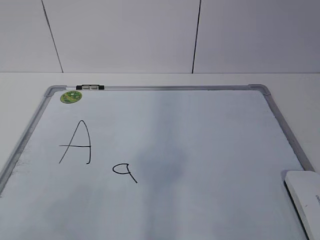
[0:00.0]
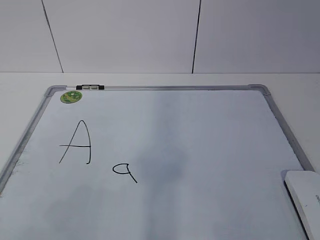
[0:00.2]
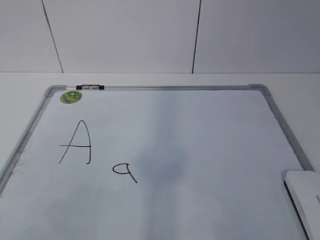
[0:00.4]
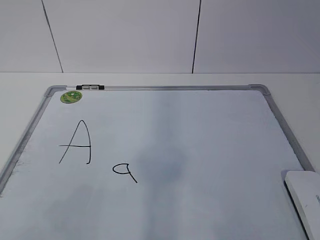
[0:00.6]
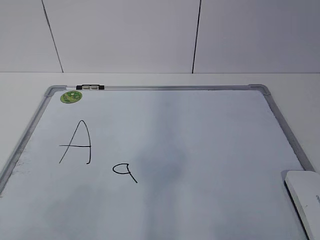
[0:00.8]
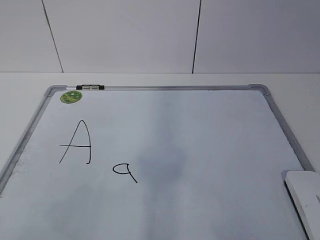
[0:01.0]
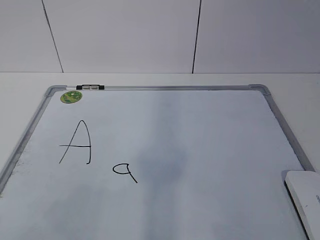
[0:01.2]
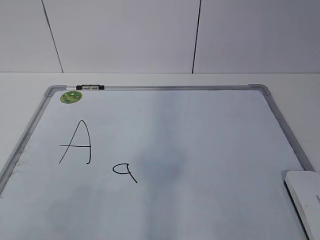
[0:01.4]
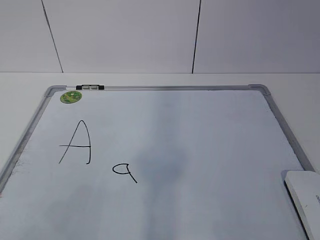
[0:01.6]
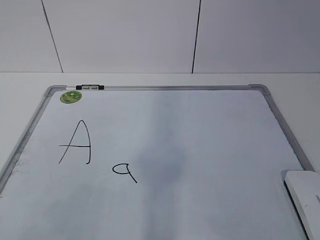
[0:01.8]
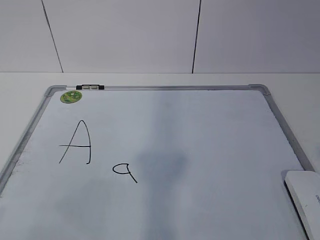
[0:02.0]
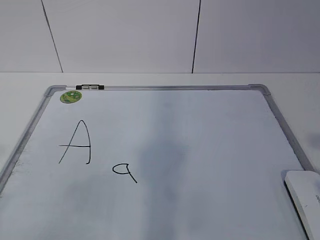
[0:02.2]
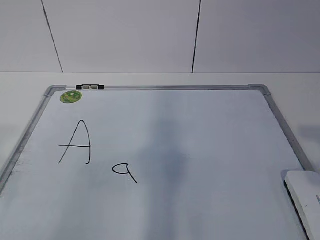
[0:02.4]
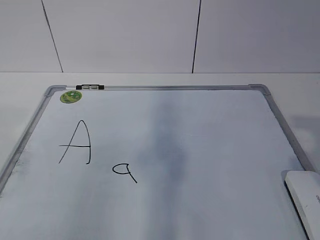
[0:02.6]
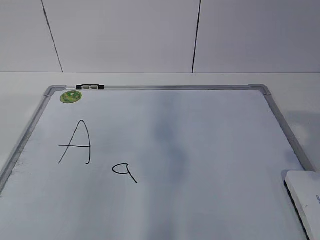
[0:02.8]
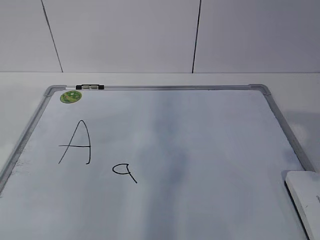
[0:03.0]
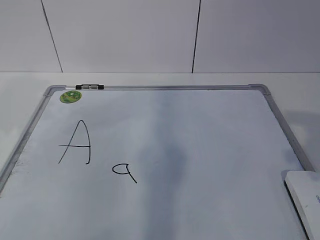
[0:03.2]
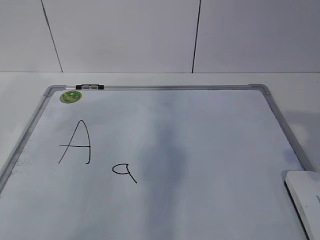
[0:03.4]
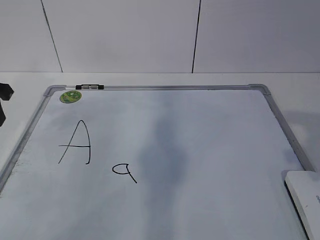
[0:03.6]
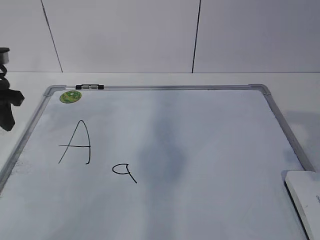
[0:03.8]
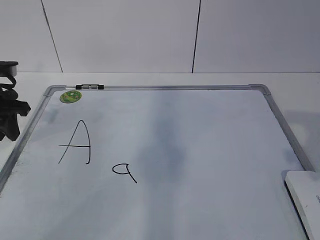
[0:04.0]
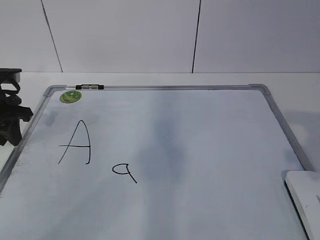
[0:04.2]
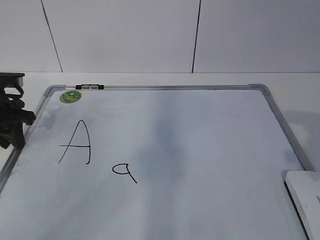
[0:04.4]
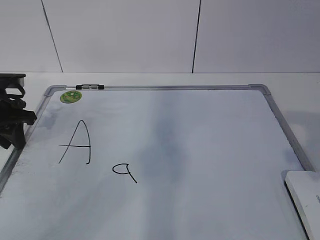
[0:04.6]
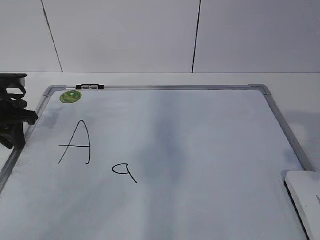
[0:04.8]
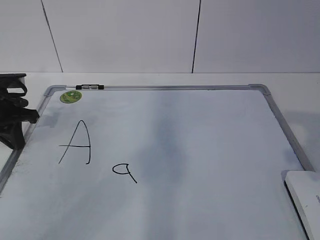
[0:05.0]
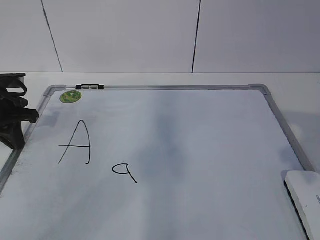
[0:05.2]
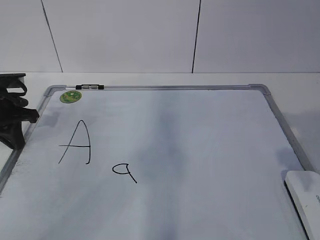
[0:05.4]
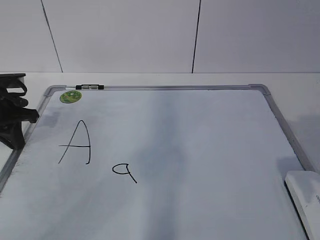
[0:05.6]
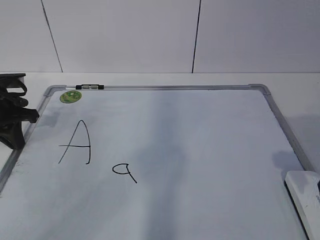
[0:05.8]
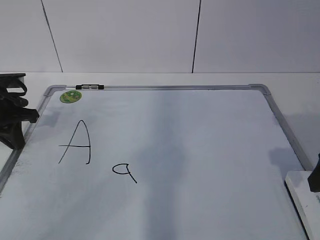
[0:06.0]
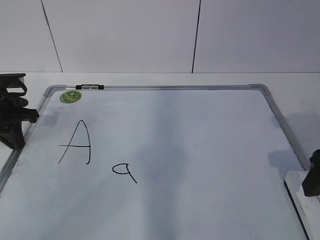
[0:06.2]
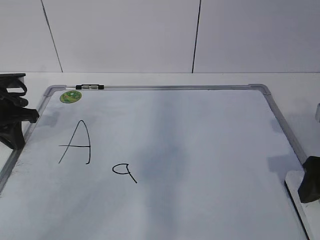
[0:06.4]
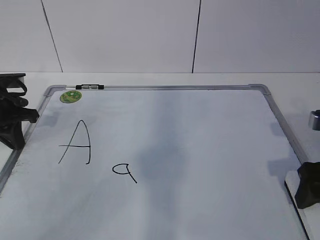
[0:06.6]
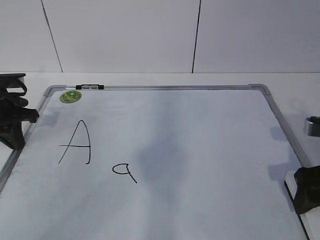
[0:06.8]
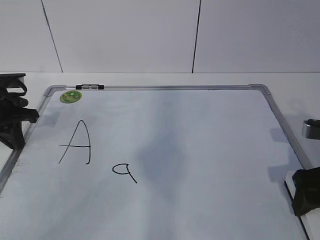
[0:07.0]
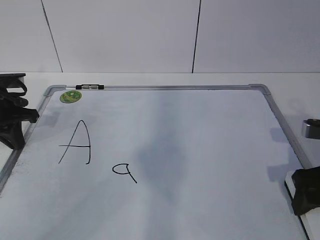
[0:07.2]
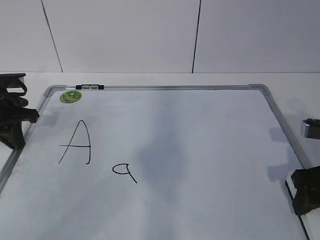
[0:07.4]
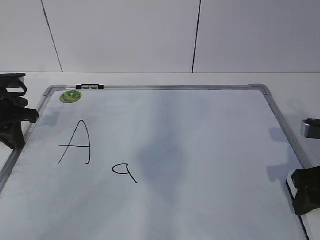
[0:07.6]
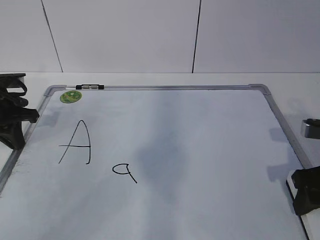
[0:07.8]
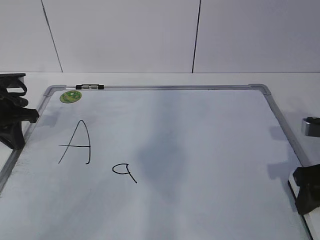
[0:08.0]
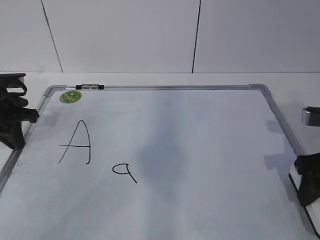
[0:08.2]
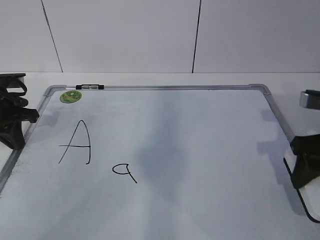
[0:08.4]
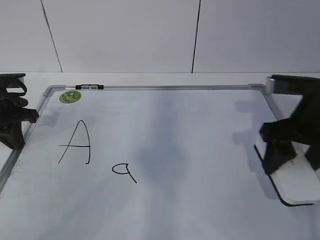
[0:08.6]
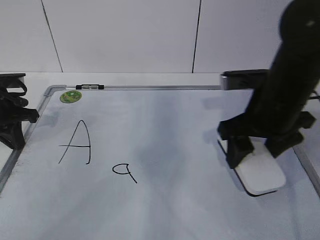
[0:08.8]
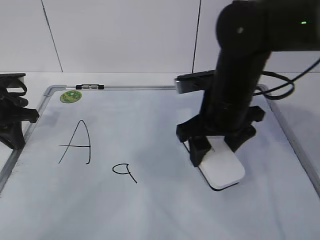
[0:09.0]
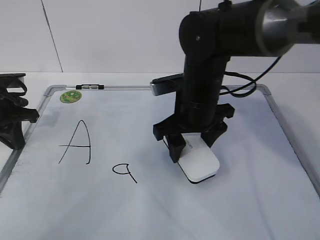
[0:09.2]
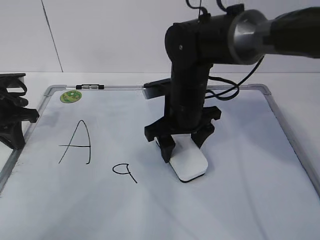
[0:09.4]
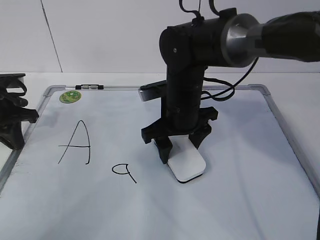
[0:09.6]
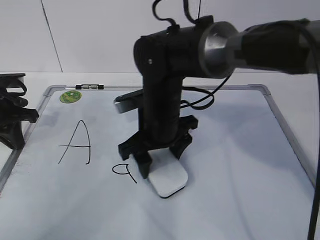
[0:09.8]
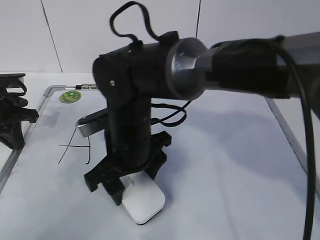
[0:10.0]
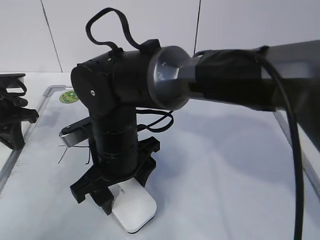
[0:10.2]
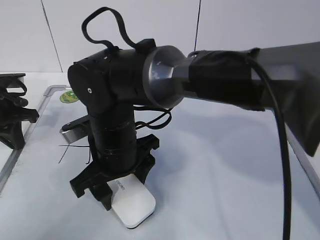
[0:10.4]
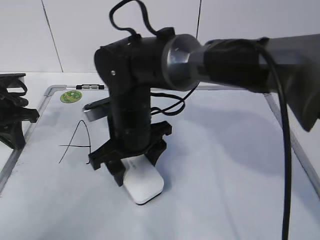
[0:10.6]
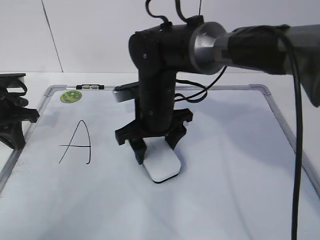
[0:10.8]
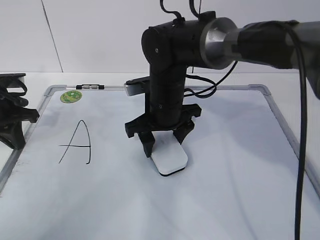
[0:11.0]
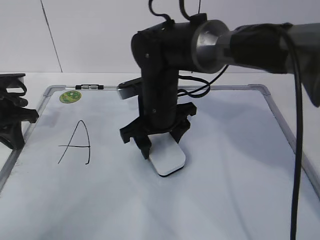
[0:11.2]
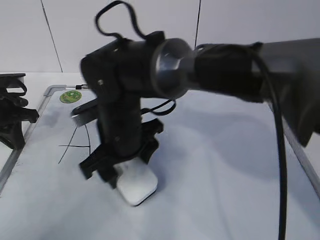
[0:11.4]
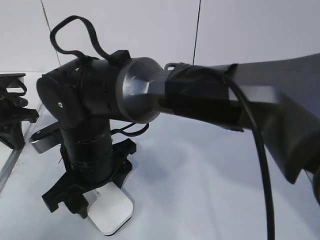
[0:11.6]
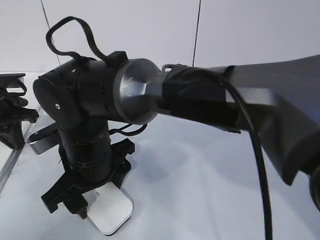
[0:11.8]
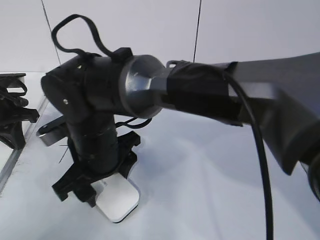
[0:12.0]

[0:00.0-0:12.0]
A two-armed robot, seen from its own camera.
Task of the whole recording: pick up the eraser on the blackboard and erase the letter "a".
Step, 0:00.0 to 0:04.0: Hold the drawing board steady with your left hand.
Step, 0:04.2 to 0:06.0: Grab the eraser with your right hand.
Step, 0:06.4 to 0:10.6: Erase the letter a with your right hand.
0:03.0 to 0:04.4: The left gripper is displaced forward and downward by approximately 20 cm.
0:04.4 to 0:06.0: The right gripper travels downward and forward by about 10 cm, and opens. The left gripper closes.
0:06.0 to 0:07.6: The right gripper is displaced downward by some 5 cm, and closes its fingers.
0:07.6 to 0:09.0: The right gripper moves to the left and forward, roughly 20 cm.
0:09.0 to 0:10.4: The right gripper travels to the left by about 15 cm.
0:10.4 to 0:12.0: The right gripper moves approximately 10 cm to the right and comes back.

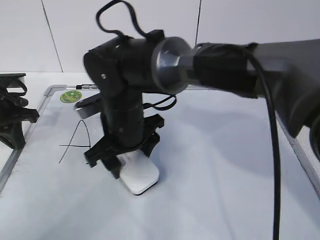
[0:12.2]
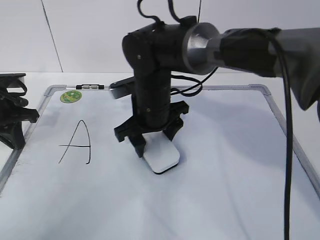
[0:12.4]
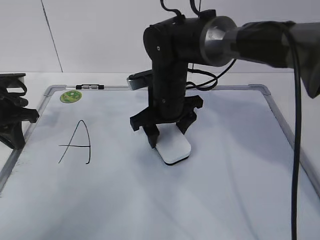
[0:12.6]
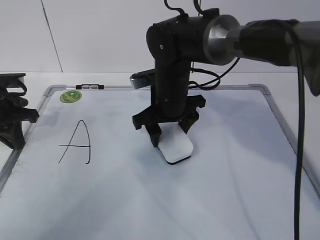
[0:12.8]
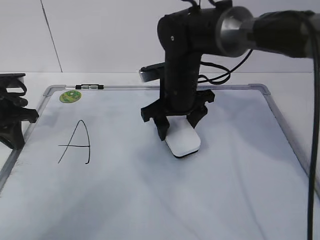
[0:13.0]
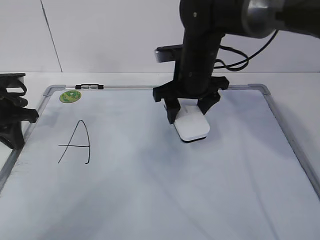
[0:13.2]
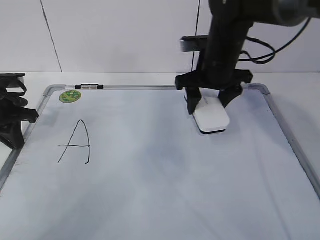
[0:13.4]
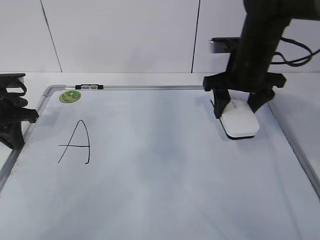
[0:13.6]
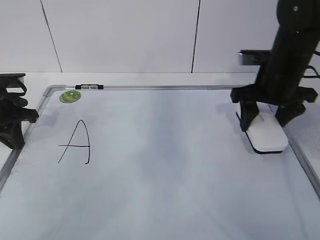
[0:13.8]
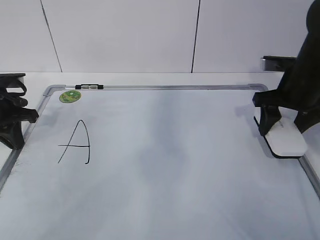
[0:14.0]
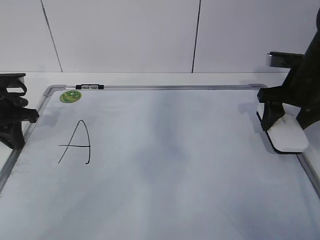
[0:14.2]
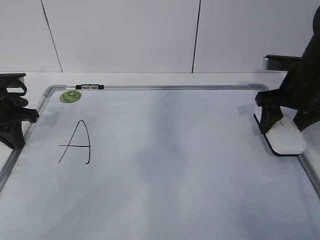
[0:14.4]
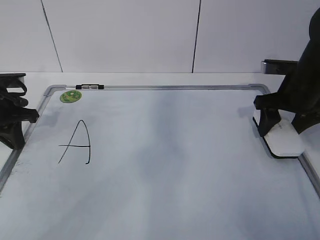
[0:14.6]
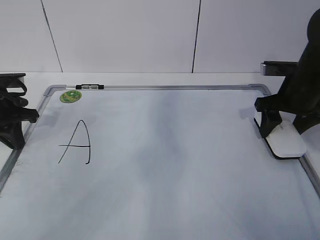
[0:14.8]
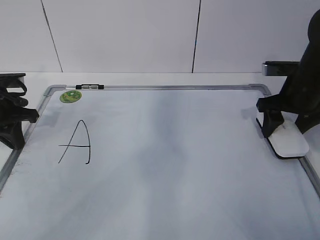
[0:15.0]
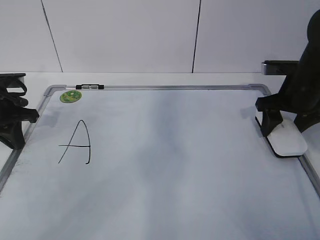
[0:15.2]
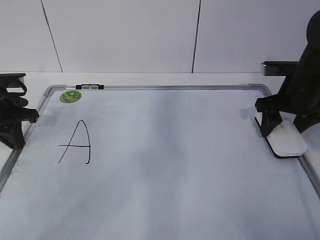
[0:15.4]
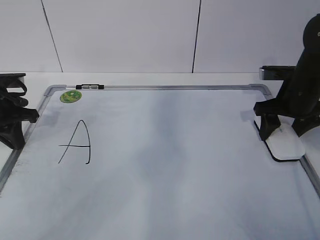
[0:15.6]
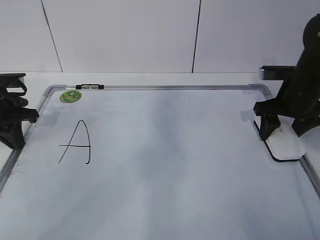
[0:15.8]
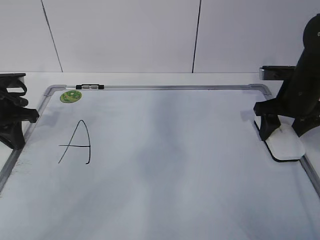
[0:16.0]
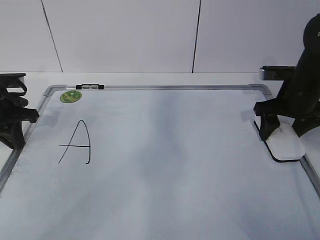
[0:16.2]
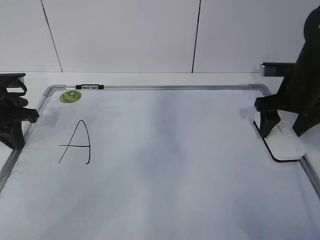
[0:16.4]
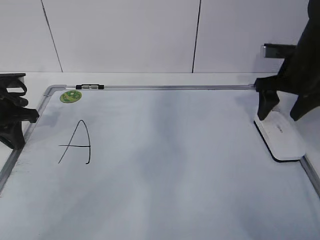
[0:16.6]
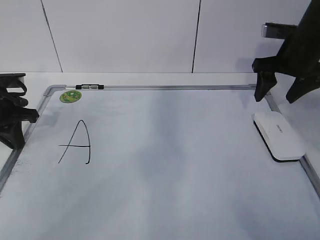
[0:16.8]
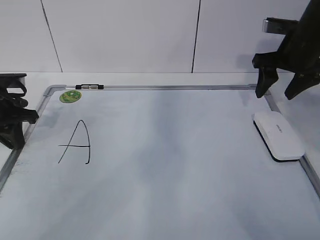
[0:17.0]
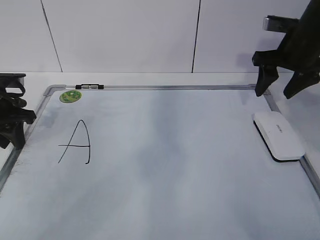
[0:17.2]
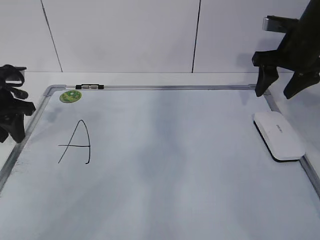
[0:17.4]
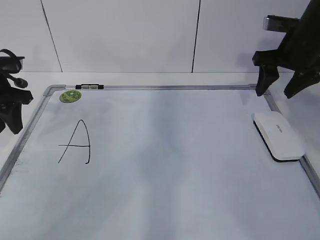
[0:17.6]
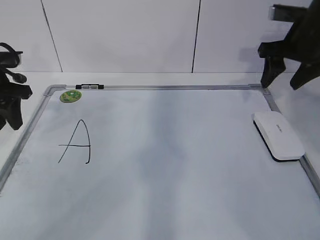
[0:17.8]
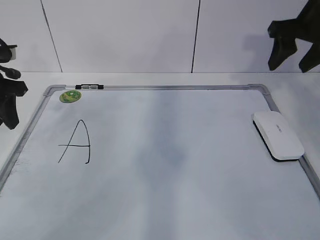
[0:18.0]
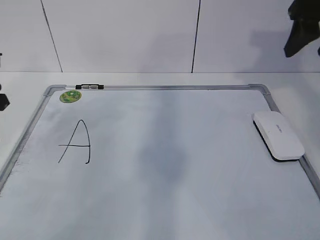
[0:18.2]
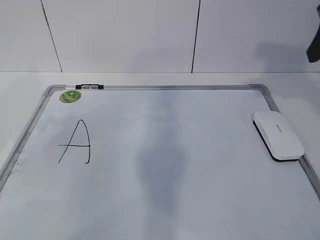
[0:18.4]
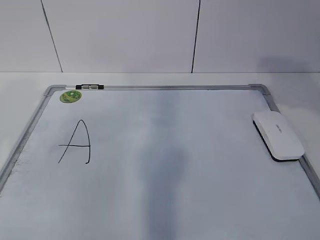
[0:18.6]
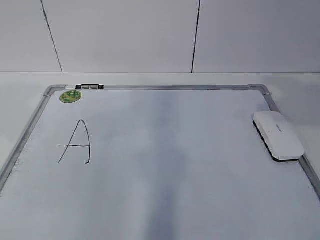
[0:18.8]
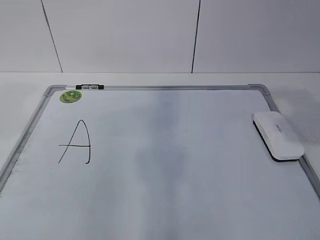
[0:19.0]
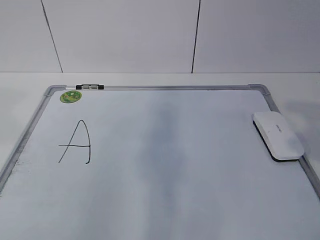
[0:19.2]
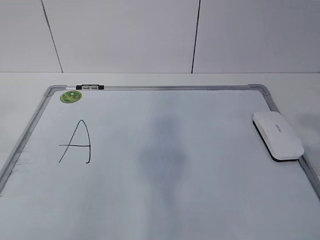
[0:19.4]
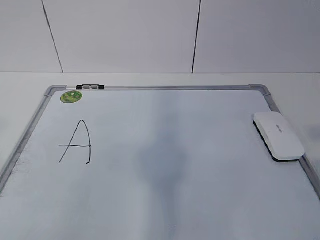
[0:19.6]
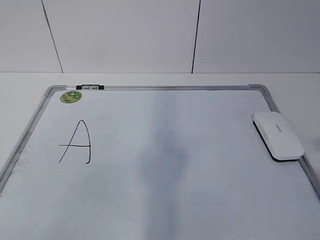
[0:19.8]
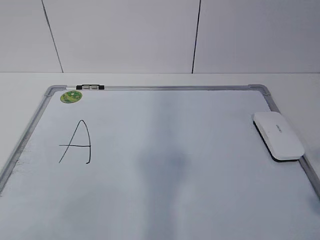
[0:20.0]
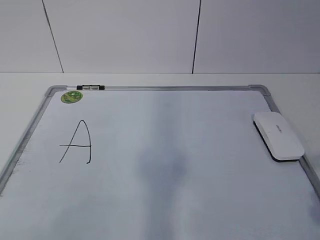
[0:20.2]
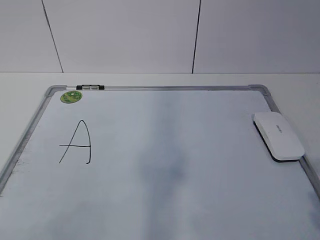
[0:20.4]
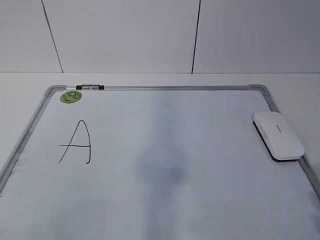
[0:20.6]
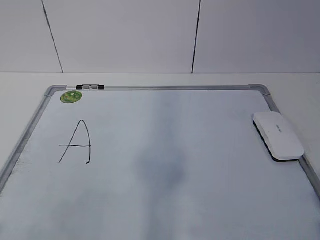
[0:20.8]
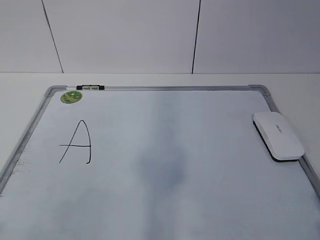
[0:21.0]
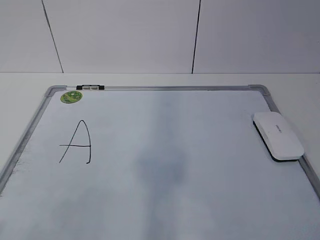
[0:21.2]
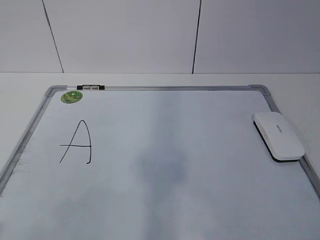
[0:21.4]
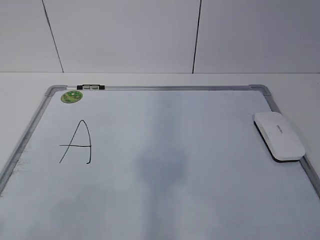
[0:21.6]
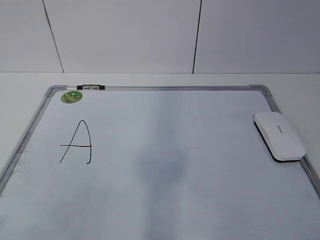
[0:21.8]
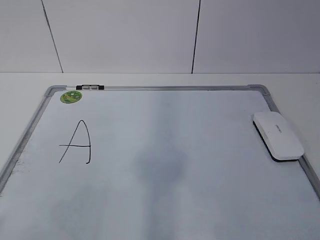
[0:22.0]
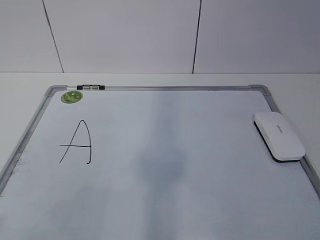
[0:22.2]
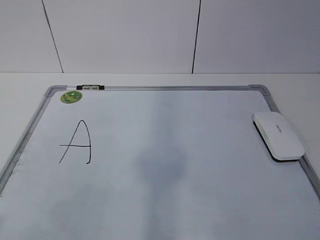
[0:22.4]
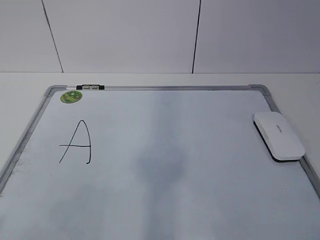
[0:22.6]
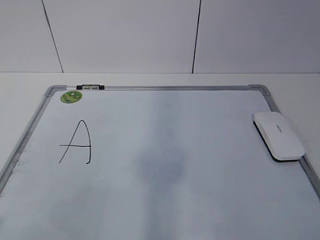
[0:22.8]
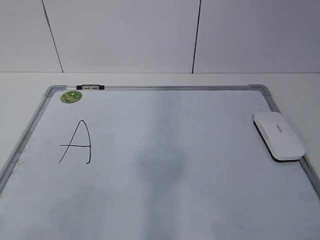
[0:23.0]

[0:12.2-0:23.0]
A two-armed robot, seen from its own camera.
Task of the whole recording: pick up the eraser on the blackboard and erase the letter "a".
0:12.2 to 0:13.8: The right gripper is displaced to the right by approximately 25 cm.
0:13.8 to 0:15.2: The right gripper heads to the right, covering roughly 5 cm.
0:15.2 to 0:16.8: The right gripper heads upward, covering some 5 cm, and opens up.
0:16.8 to 0:18.4: The grippers both shift upward and backward by approximately 15 cm. The left gripper opens. Meanwhile the right gripper closes up.
0:18.4 to 0:20.0: The right gripper shifts about 30 cm backward.
